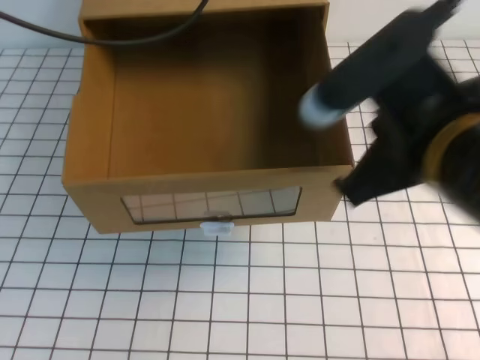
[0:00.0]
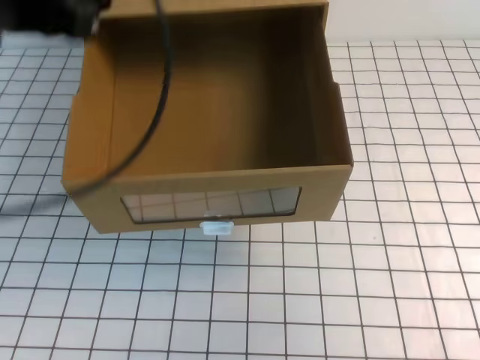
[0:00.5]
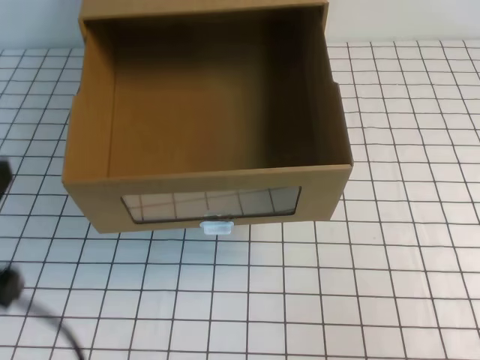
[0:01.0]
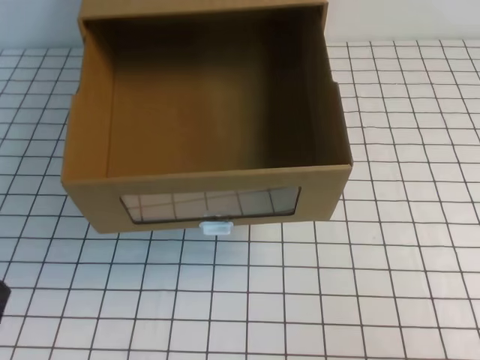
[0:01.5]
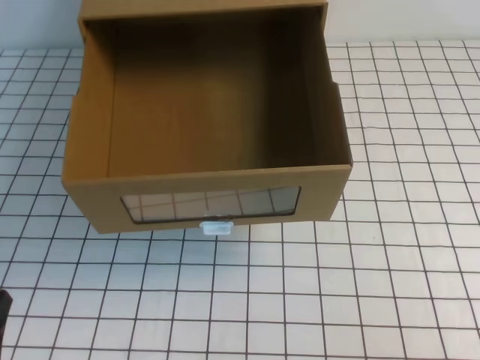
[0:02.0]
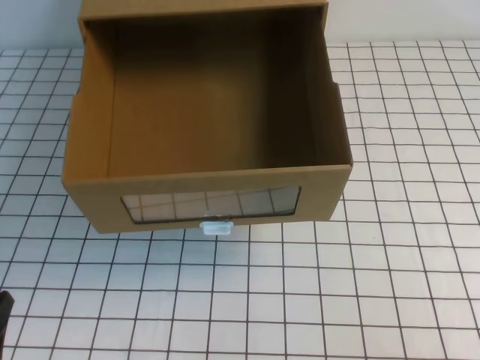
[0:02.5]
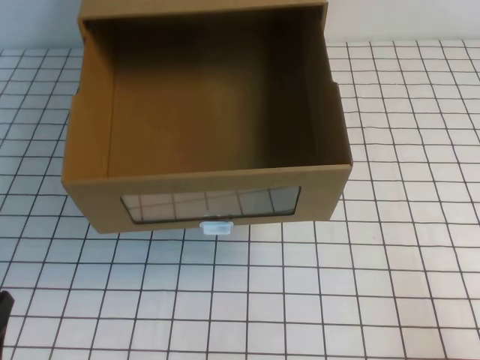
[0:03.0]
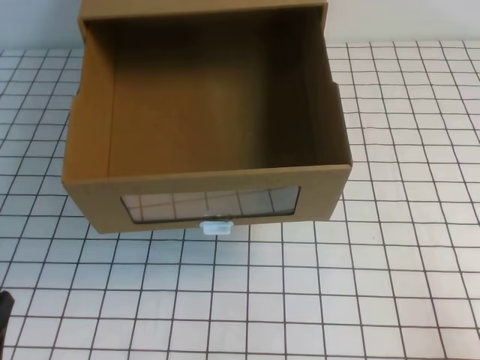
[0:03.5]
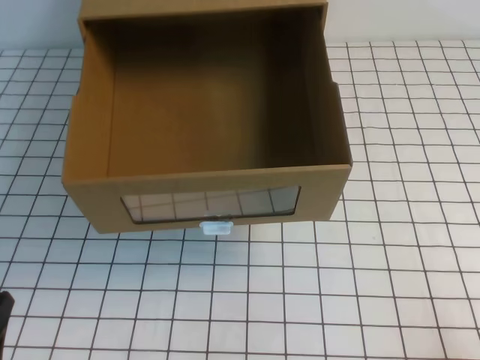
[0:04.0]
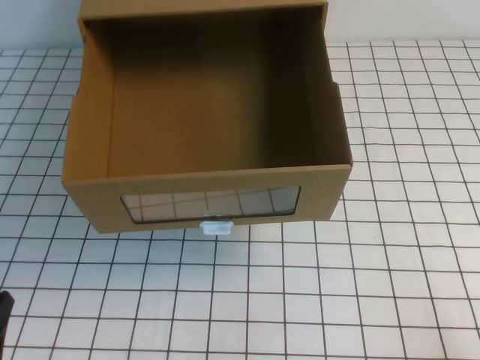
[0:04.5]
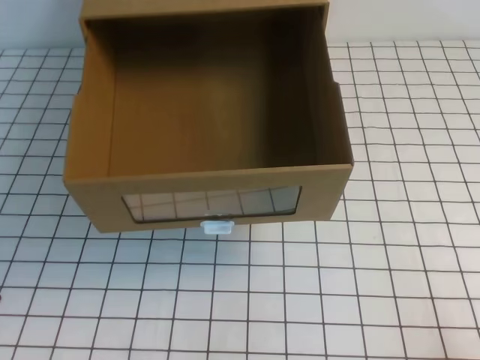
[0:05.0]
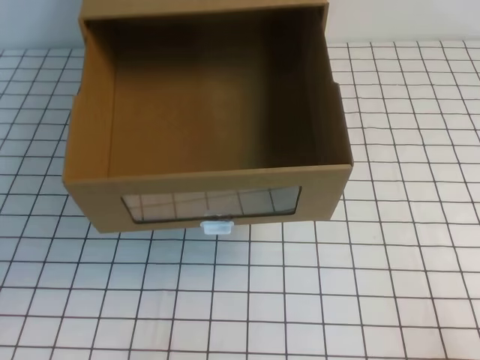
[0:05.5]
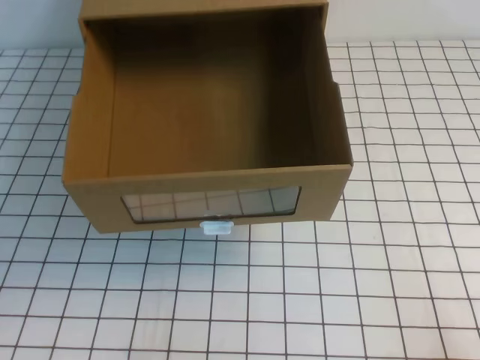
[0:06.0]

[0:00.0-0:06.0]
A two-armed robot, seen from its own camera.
Task of the whole recording: open the shoebox on the white tablecloth.
Step, 0:00.0 to 0:06.0: Open the shoe box.
0:00.0 to 0:02.0: The left gripper is displaced backward and downward by some 40 cm. Meanwhile the right gripper is displaced to the right, backward and downward by roughly 25 cm.

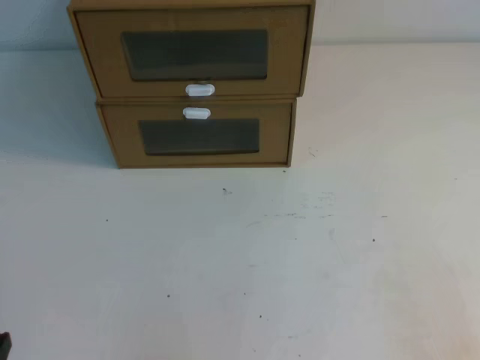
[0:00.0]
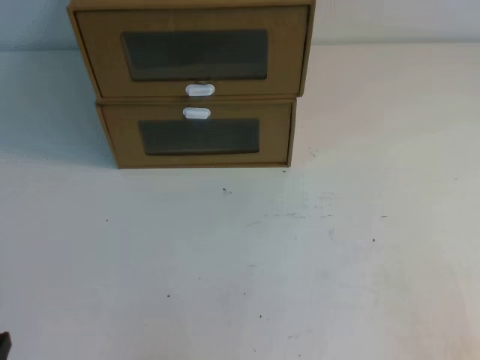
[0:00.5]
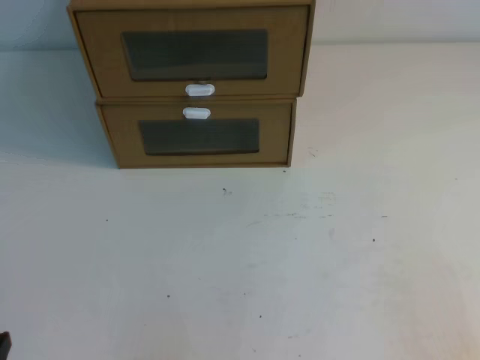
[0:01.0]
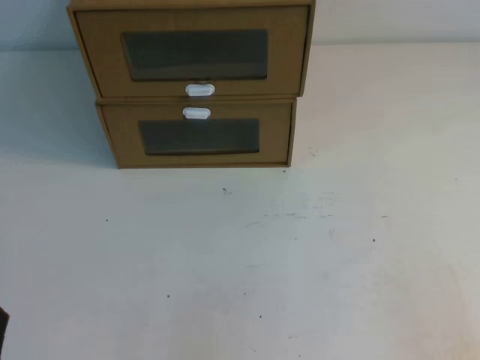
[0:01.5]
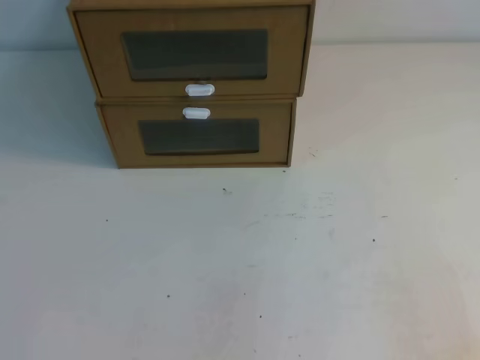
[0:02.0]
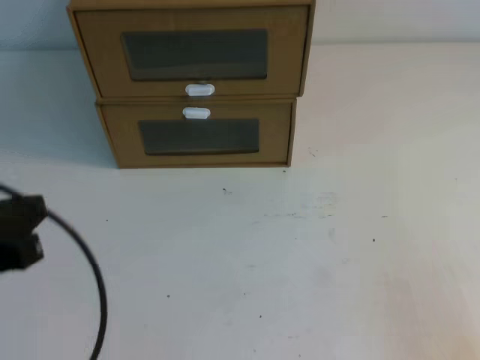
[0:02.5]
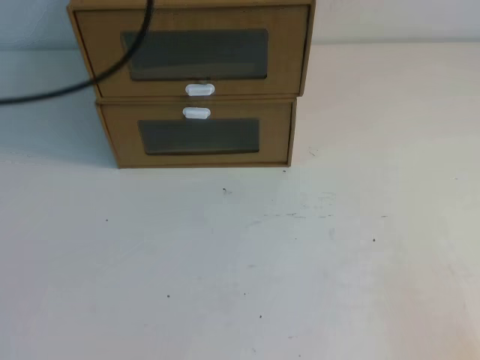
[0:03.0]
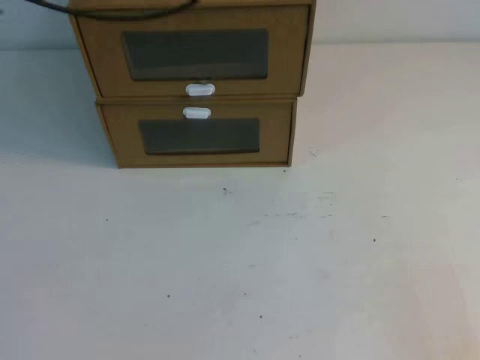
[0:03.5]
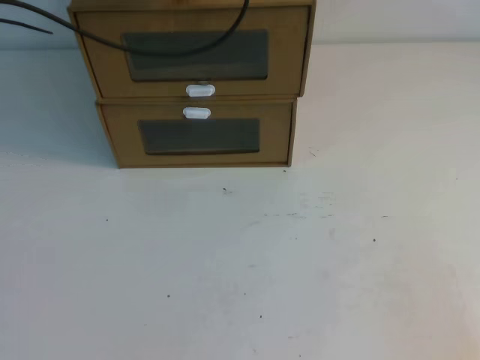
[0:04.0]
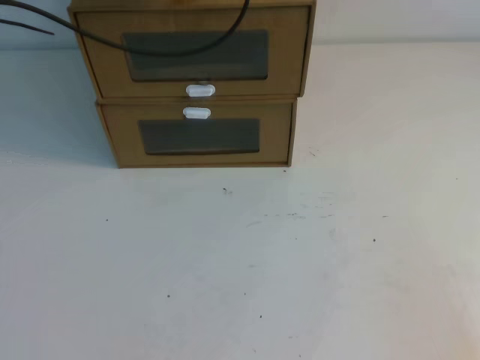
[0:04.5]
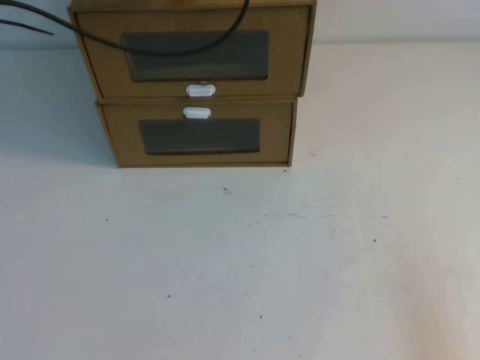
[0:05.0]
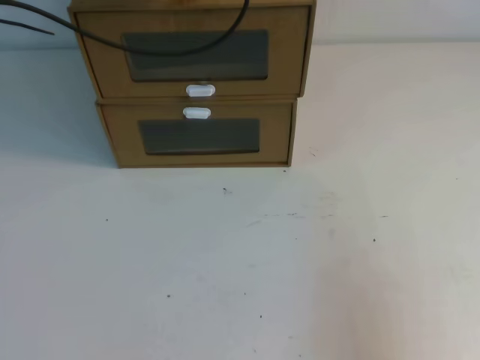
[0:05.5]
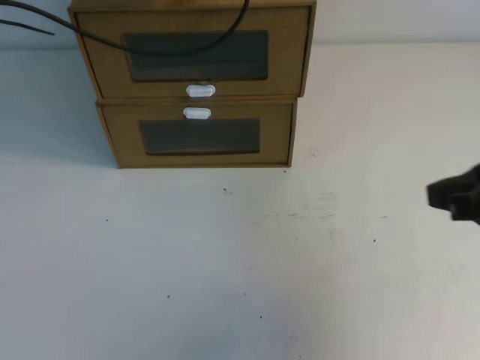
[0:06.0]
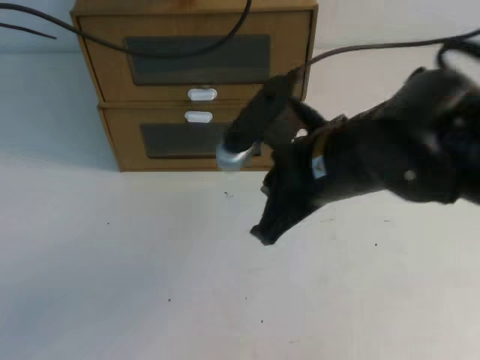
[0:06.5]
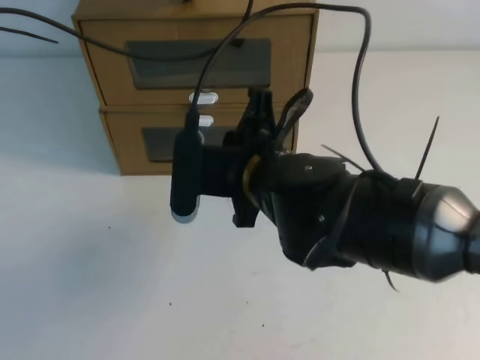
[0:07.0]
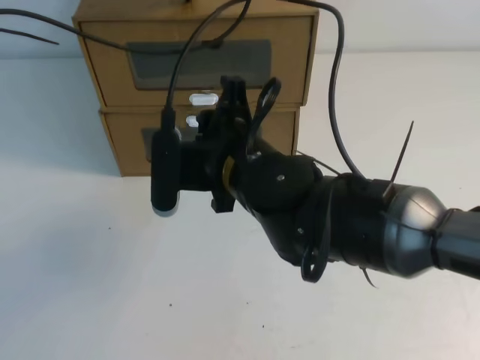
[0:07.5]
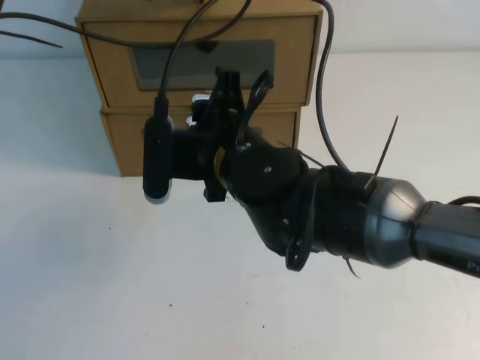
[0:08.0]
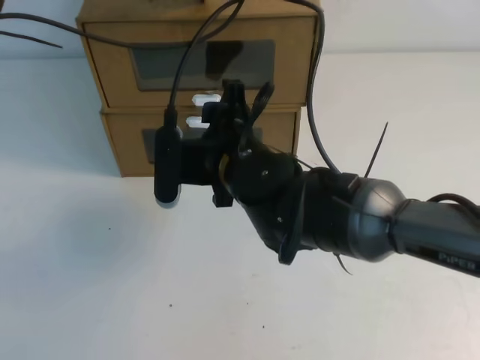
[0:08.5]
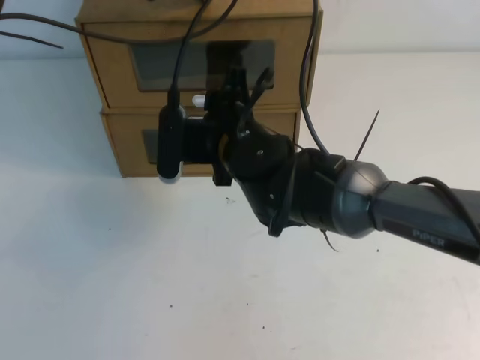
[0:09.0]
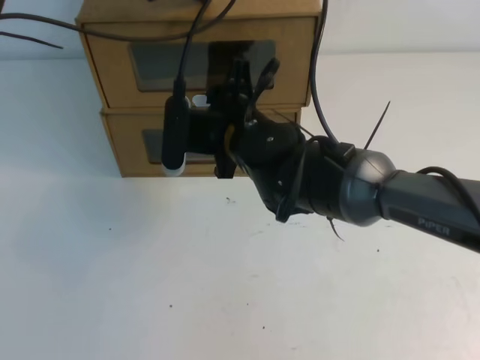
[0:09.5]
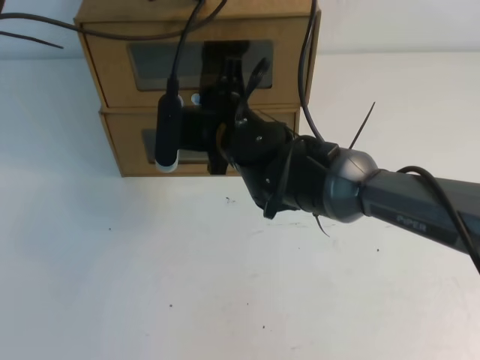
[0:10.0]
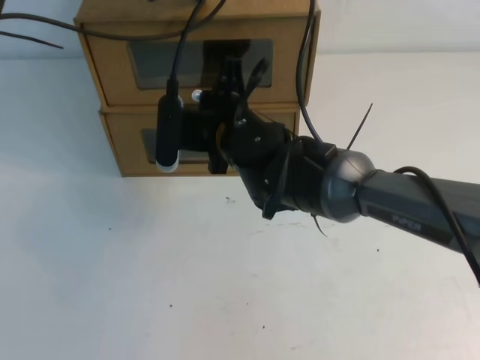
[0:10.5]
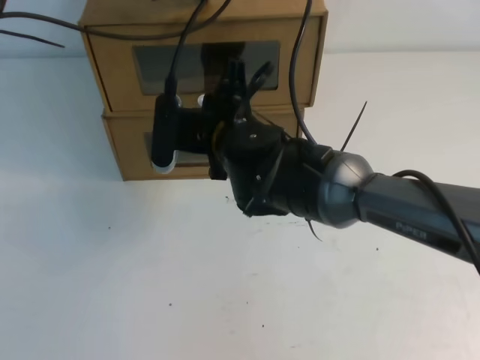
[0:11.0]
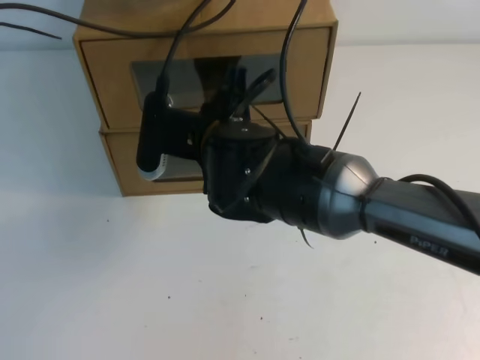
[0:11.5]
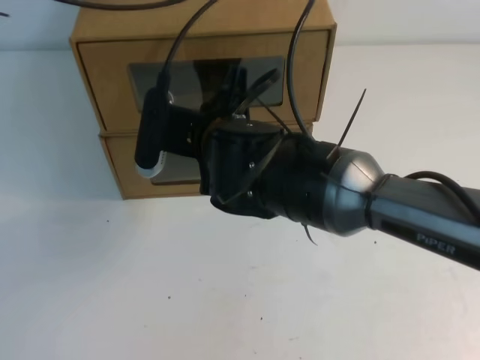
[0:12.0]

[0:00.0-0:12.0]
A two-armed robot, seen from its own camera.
Task of the whole recording: open the shoebox on the table.
0:02.0 to 0:04.0: The left gripper moves forward and upward, roughly 40 cm.
0:04.0 to 0:06.0: The right gripper shifts roughly 20 cm upward, forward and to the left.
0:06.0 to 0:08.0: The right gripper travels to the left and forward by approximately 30 cm, and opens up.
0:08.0 to 0:10.0: The right gripper heads forward, covering approximately 5 cm.
0:10.0 to 0:12.0: The right gripper moves backward, about 5 cm, and closes up. Meanwhile the left gripper ends up about 5 cm from where it was.

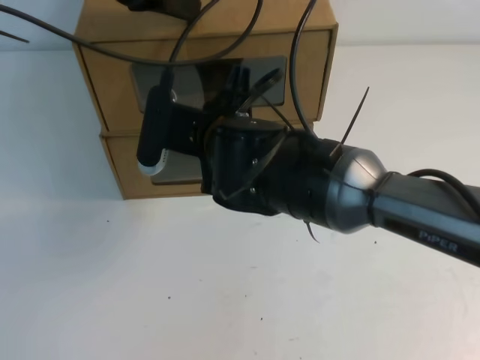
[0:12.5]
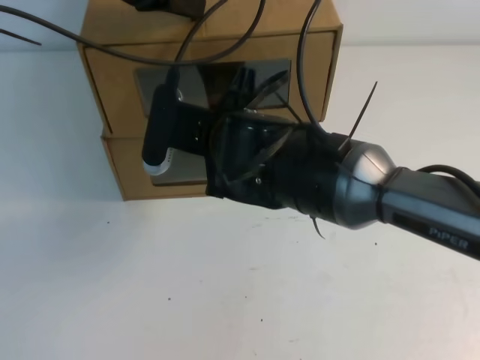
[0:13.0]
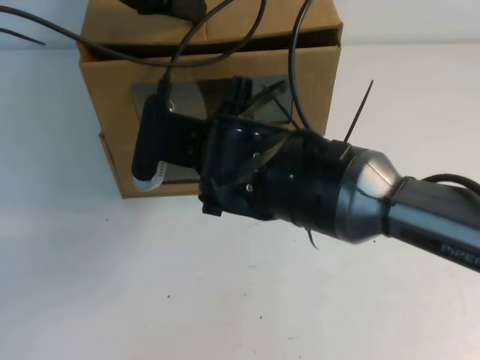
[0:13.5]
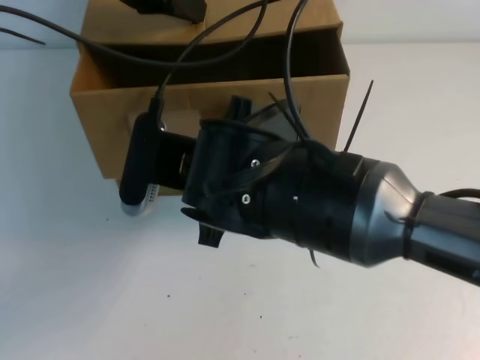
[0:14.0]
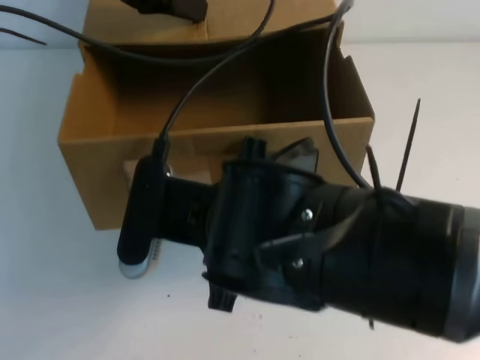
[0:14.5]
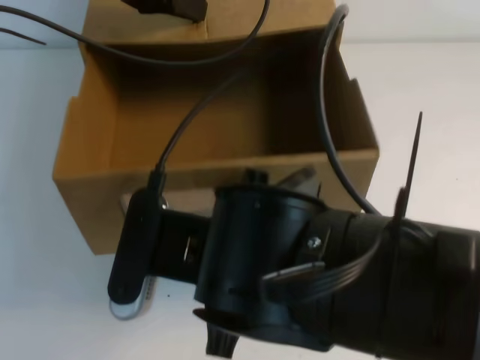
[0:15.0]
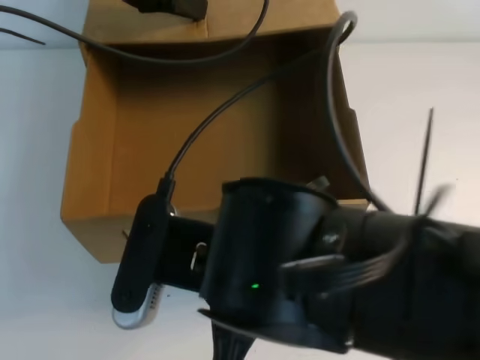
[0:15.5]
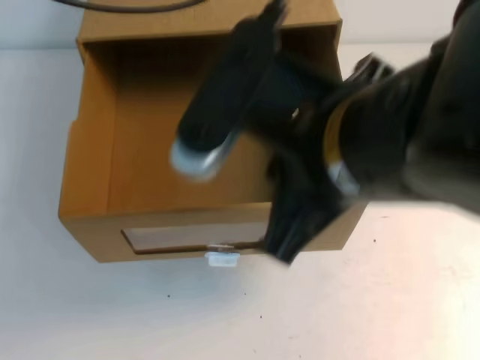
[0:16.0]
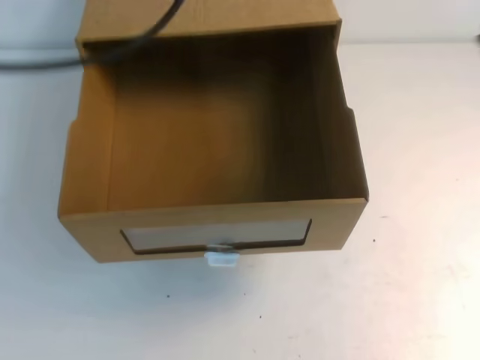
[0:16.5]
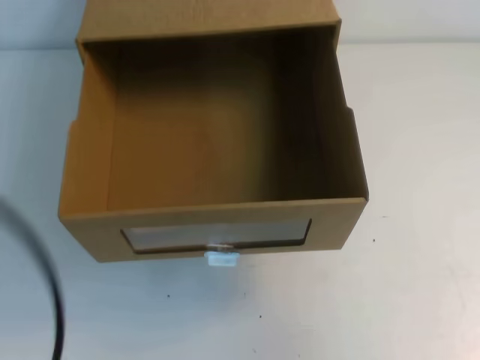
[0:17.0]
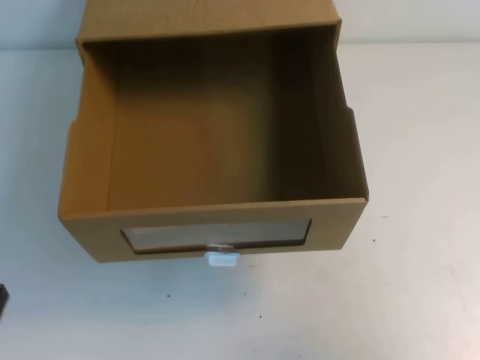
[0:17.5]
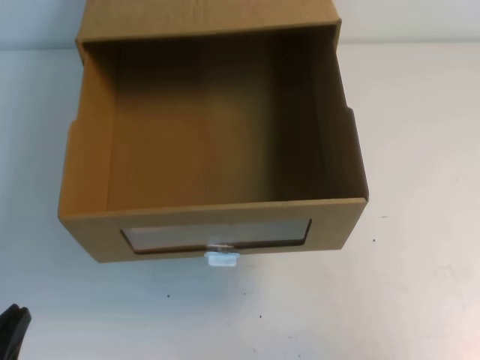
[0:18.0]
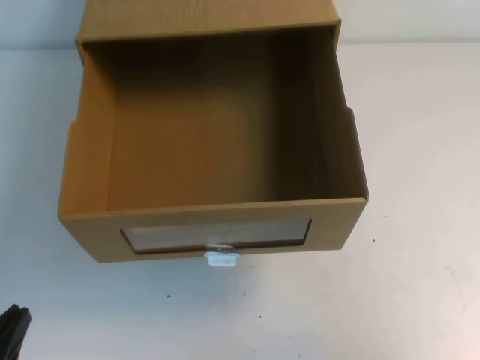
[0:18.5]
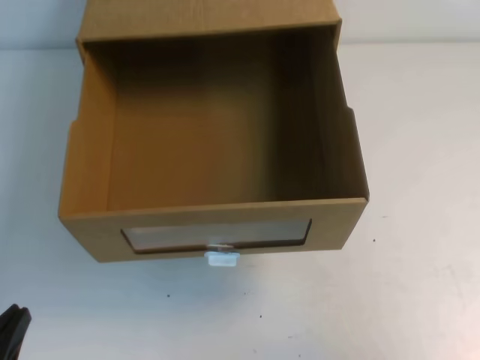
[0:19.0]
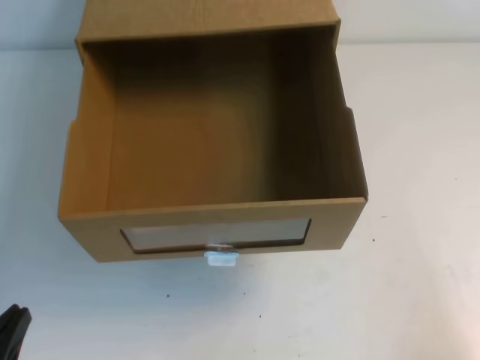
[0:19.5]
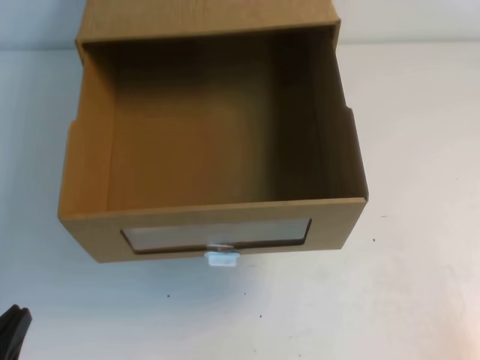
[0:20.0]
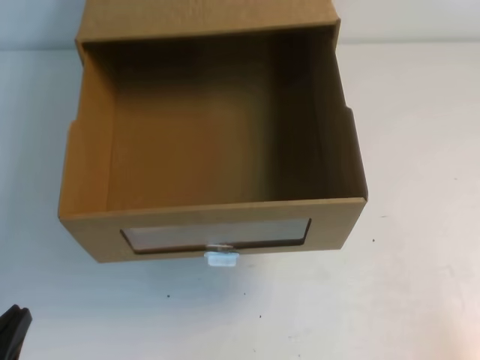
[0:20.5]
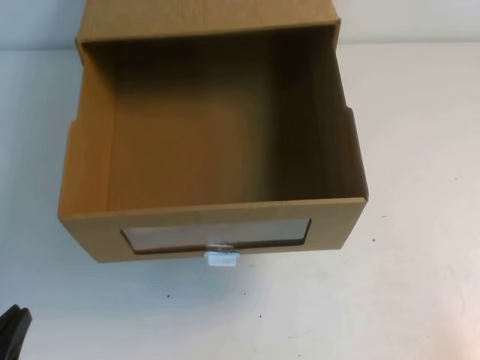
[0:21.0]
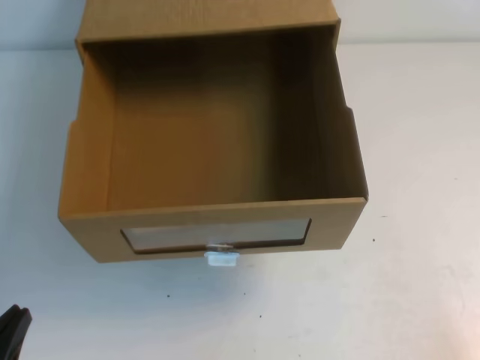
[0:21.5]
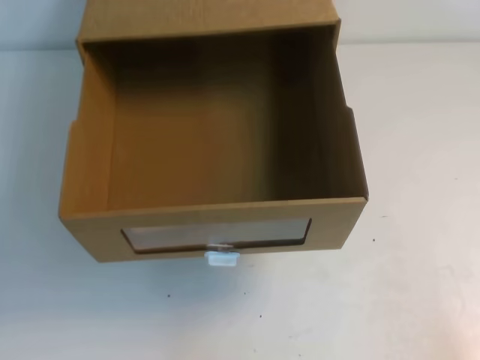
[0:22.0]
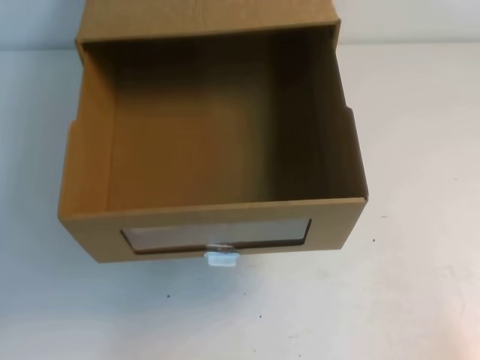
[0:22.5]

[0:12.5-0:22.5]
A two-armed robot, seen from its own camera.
Task of the whole recording: open the shoebox on the table.
0:12.5 to 0:14.5: The right gripper moves backward, some 15 cm.
0:14.5 to 0:16.5: The left gripper heads backward and upward, covering approximately 20 cm. The right gripper travels to the right and upward by some 25 cm.
0:16.5 to 0:18.5: The left gripper goes about 40 cm downward and backward. Meanwhile the right gripper goes roughly 20 cm downward and backward.
0:18.5 to 0:20.5: The right gripper moves downward, backward and to the right, about 15 cm.
